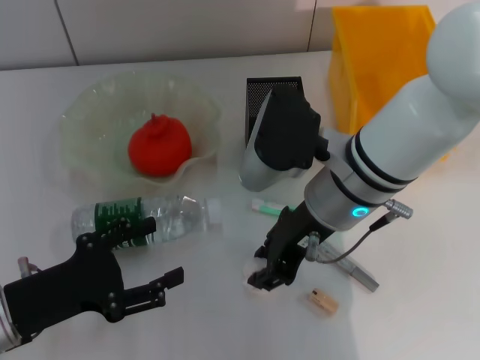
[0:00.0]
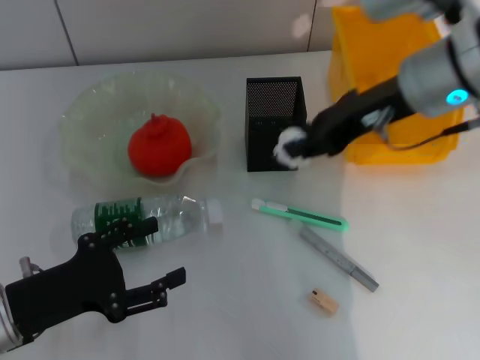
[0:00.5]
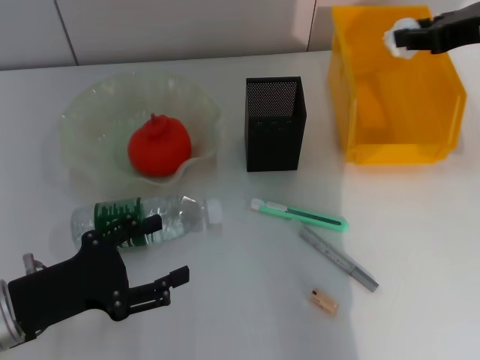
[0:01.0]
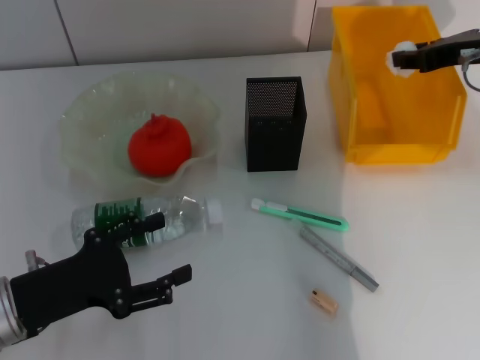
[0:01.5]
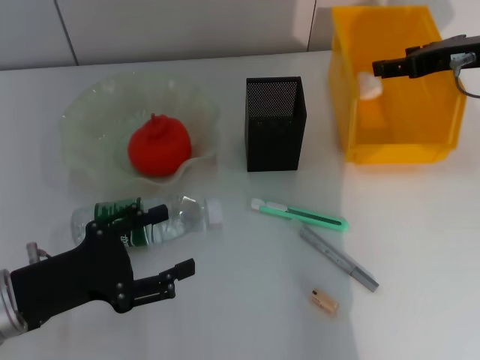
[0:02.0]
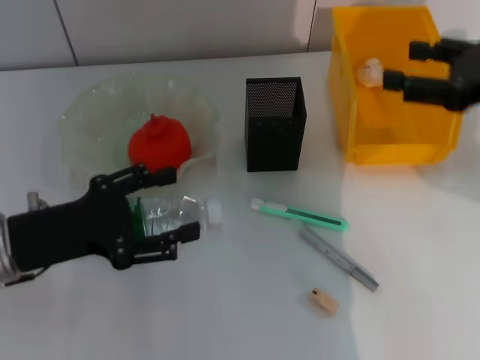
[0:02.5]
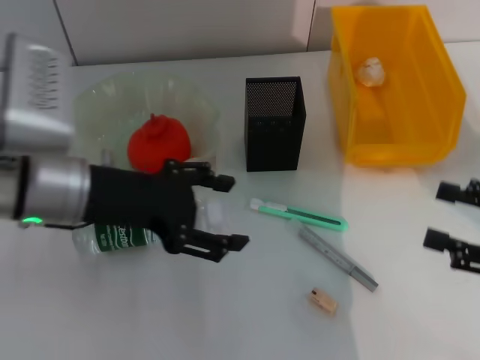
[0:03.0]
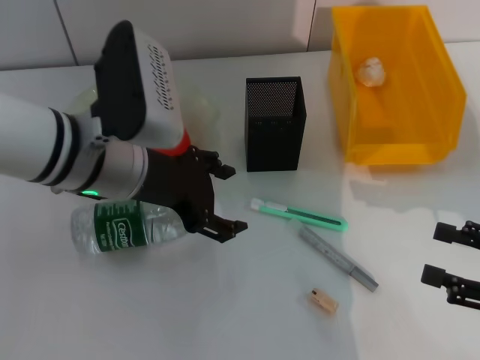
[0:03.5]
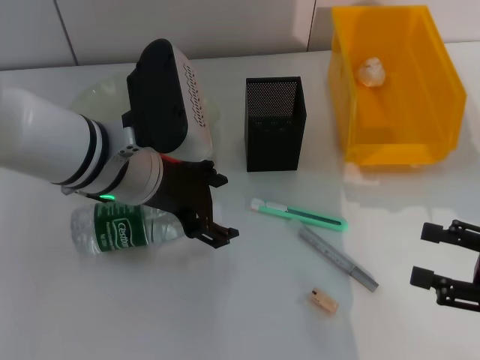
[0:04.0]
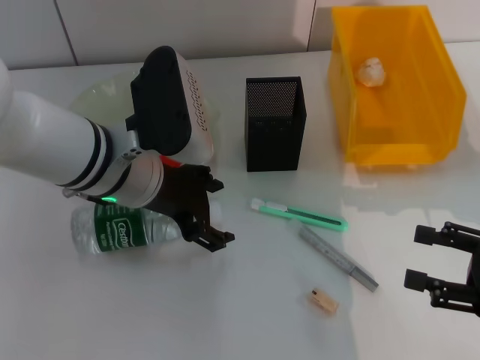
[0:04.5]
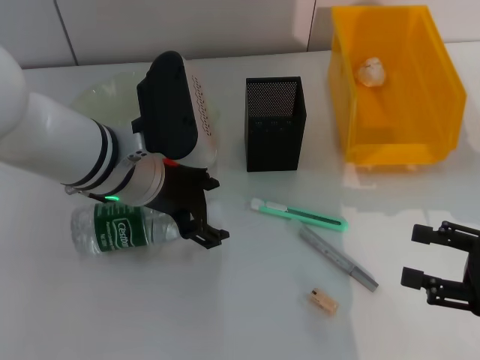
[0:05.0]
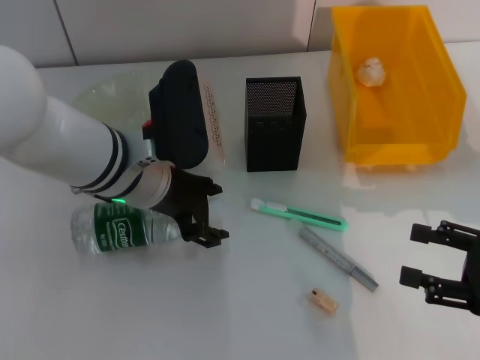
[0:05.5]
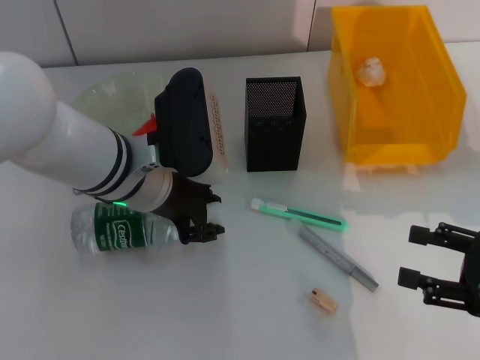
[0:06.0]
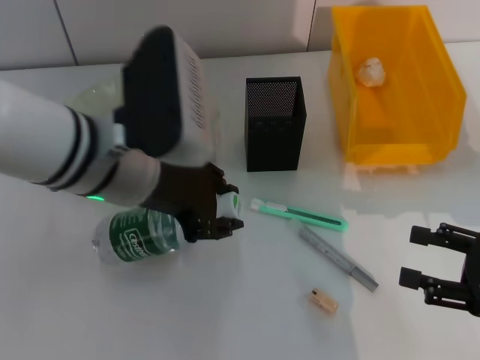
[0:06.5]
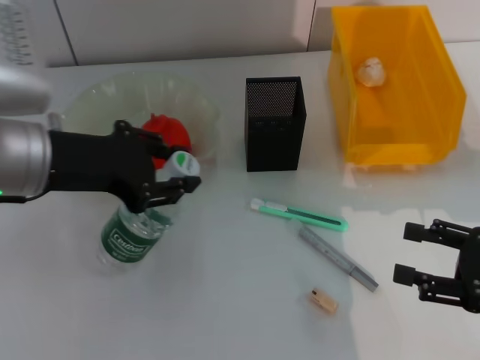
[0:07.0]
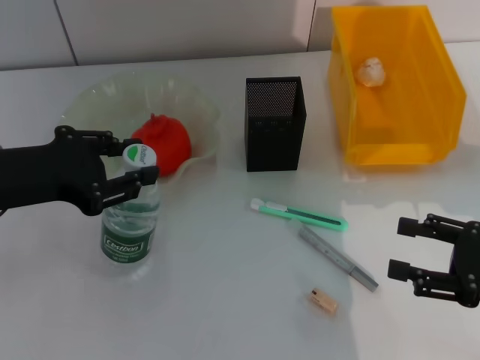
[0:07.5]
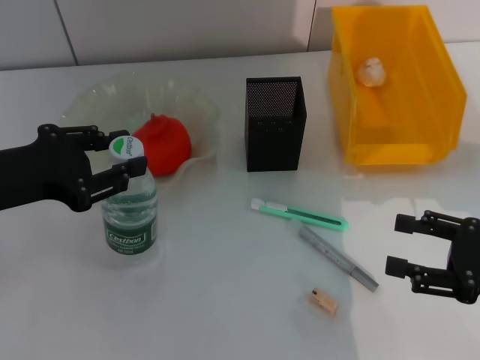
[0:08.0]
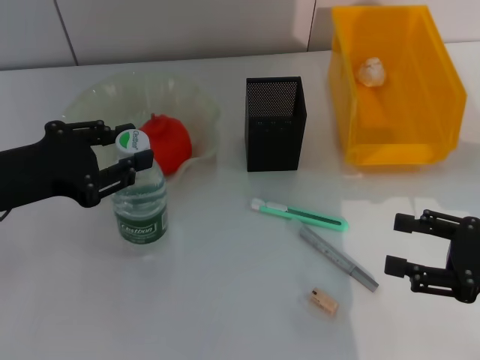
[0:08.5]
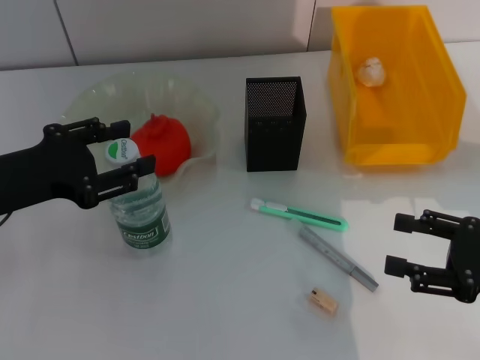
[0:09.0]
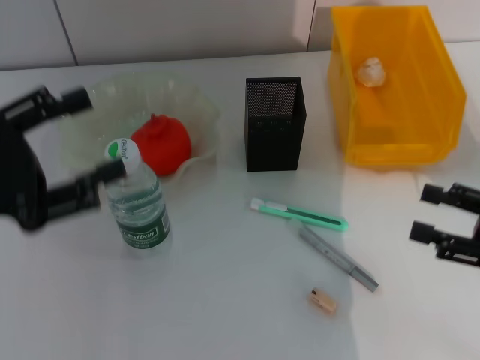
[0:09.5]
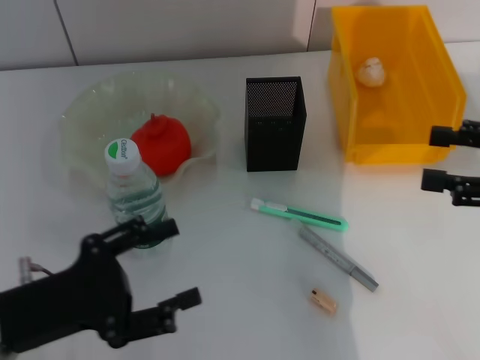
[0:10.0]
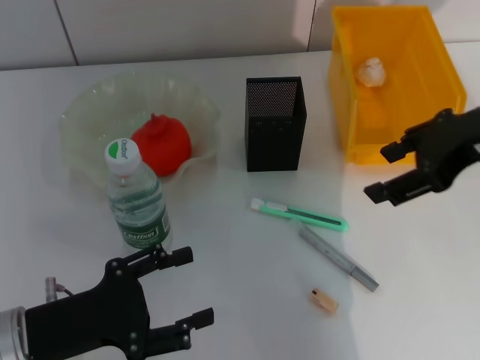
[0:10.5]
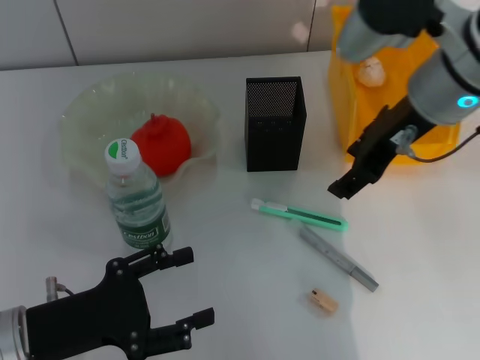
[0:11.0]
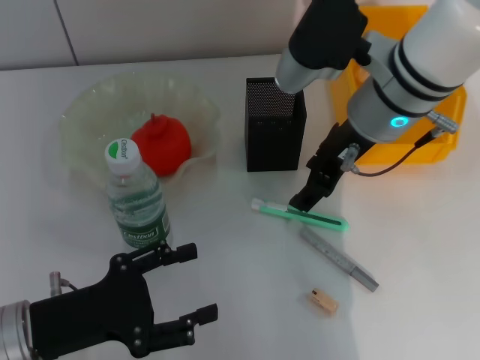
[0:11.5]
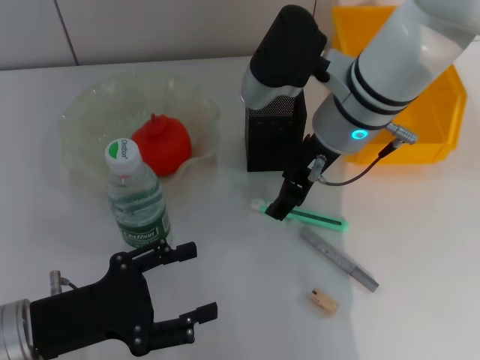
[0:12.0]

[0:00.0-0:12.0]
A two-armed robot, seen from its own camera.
Step, 0:00.0 to 0:02.0: Place the paper ball into the trash can with the right hand.
Step, 0:02.5 to 0:05.5: Grab the water bottle with the left hand.
Step, 0:06.0 to 0:09.0: Place the water bottle on the table with the left hand.
0:00.0 to 0:02.0: The right gripper is displaced to the right and forward by approximately 20 cm.
0:02.0 to 0:04.0: The right gripper moves backward and downward, some 25 cm; the left gripper goes approximately 20 cm to the right, forward and upward.
0:04.0 to 0:06.0: The left gripper closes its fingers.
0:06.0 to 0:08.0: The left gripper shifts roughly 15 cm to the left.
0:08.0 to 0:10.0: The right gripper travels upward by about 10 cm. The left gripper is displaced downward and backward by some 10 cm, and opens.
0:10.0 to 0:12.0: The right gripper is displaced to the left and forward by roughly 25 cm.

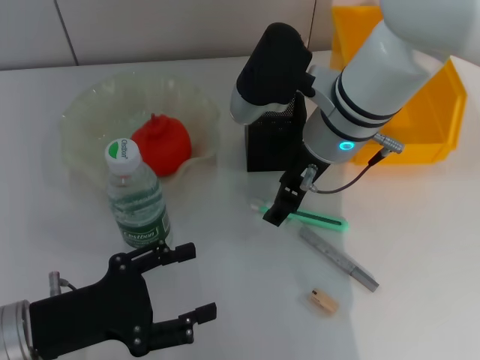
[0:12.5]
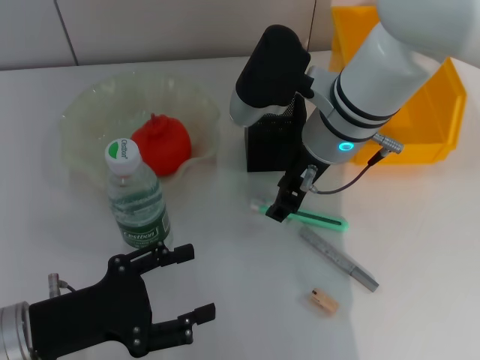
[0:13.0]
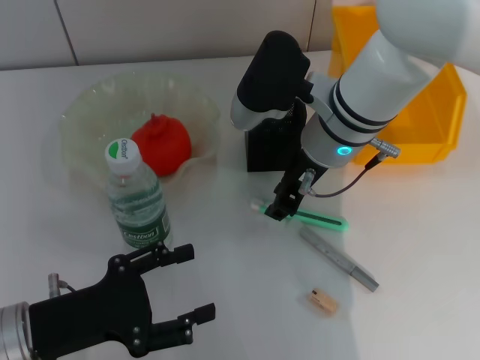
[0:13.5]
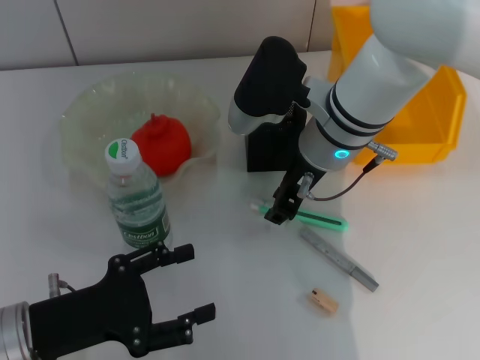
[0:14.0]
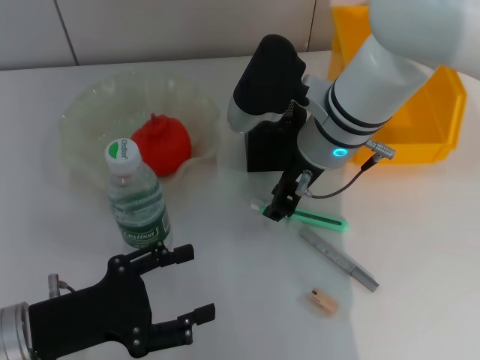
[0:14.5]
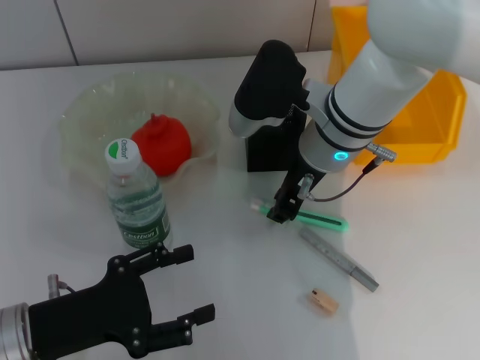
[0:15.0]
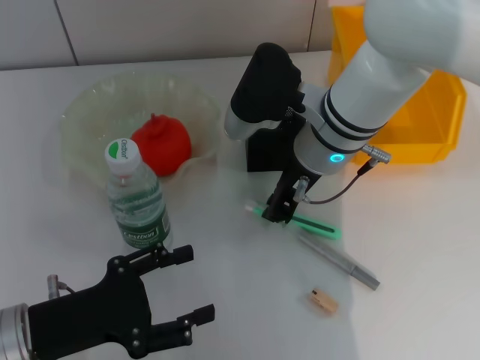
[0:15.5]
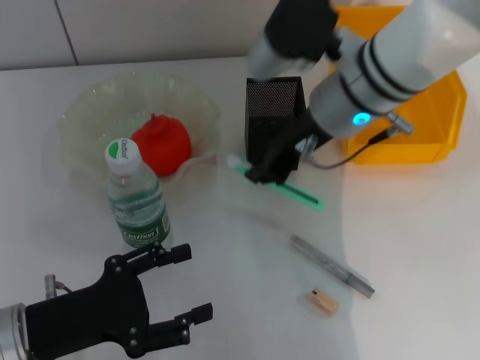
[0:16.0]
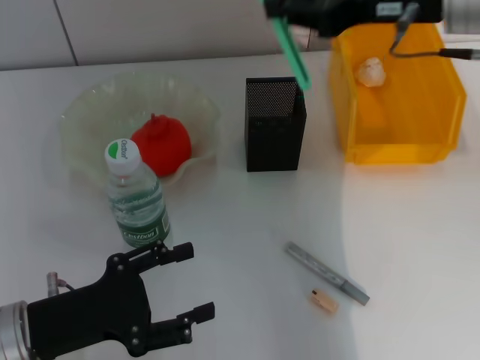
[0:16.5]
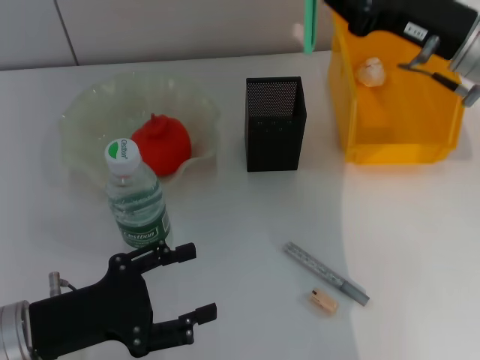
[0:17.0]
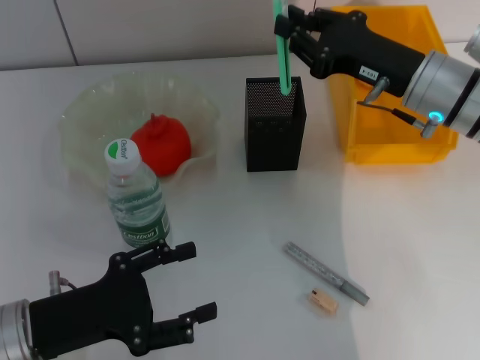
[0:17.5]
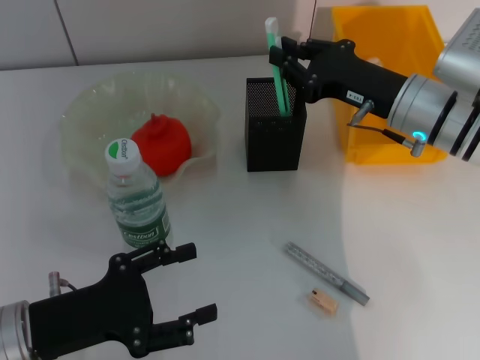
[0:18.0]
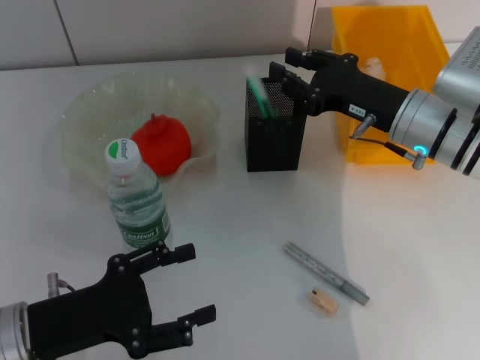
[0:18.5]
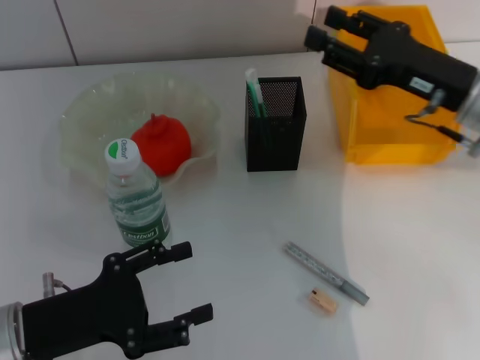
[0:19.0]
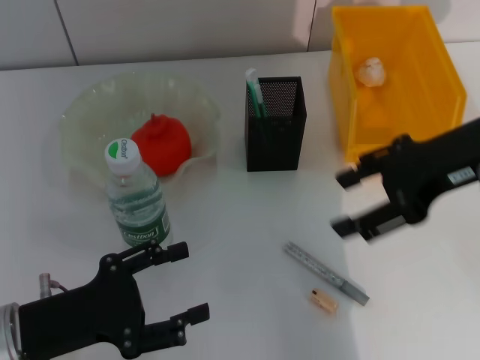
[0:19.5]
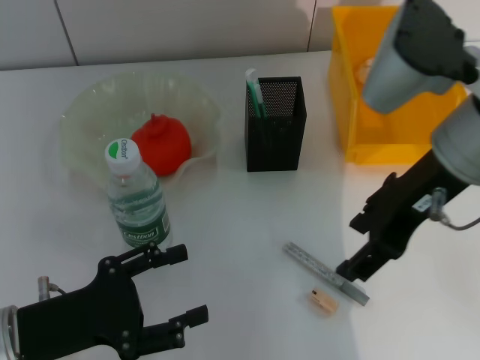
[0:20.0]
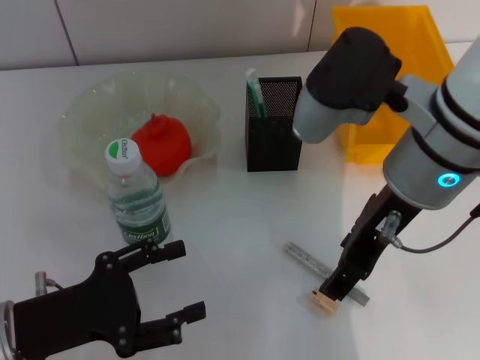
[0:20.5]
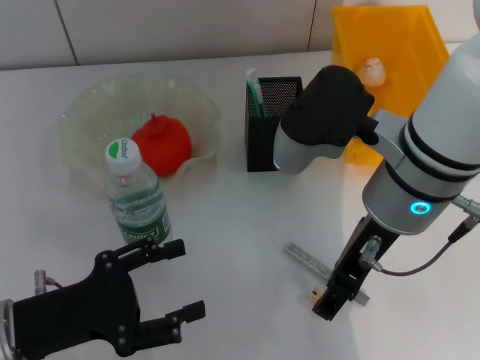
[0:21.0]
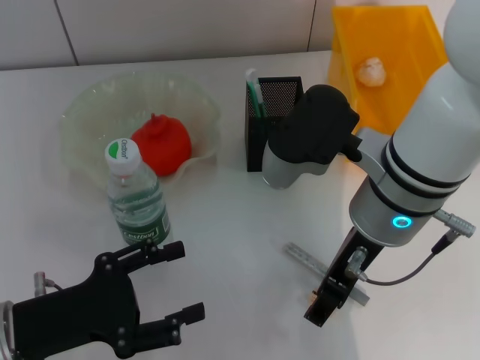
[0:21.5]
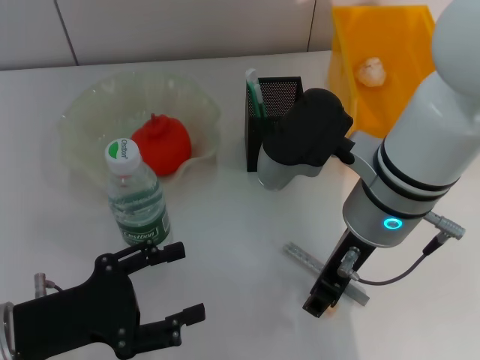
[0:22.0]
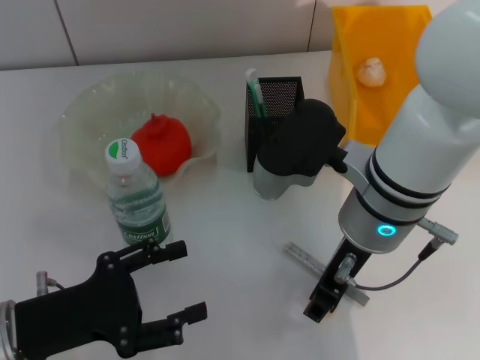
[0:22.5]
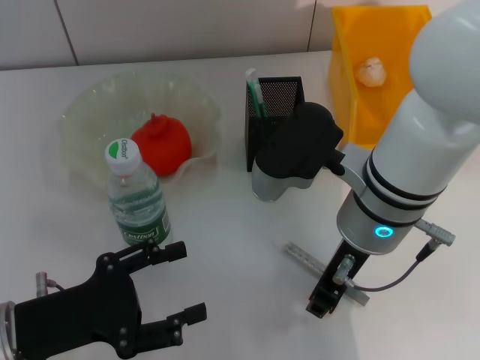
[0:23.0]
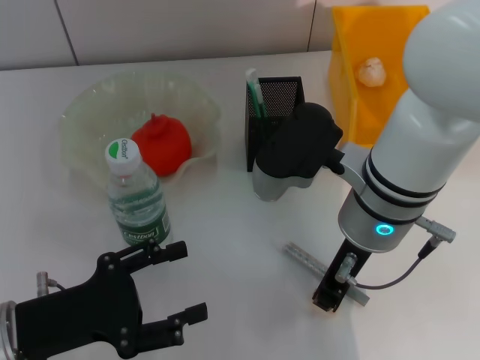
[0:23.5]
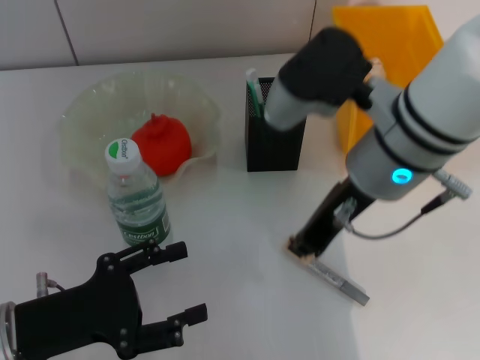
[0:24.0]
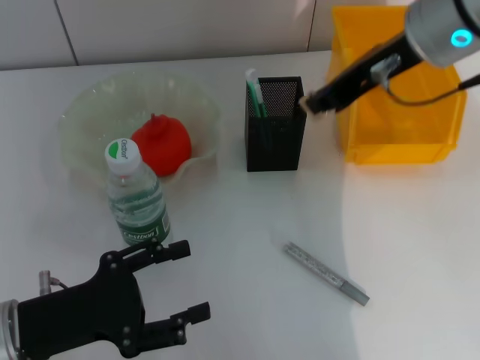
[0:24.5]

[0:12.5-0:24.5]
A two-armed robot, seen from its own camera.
Step, 0:12.5 to 0:15.0: Grab the blue utility knife with the right hand.
Step, 0:15.5 to 0:18.5: Place the blue utility knife into the pen holder with the right hand.
Step, 0:19.0 to 0:23.0: Grab the eraser with the right hand.
0:12.5 to 0:14.5: The grippers move only a little.
0:14.5 to 0:16.5: The right gripper travels to the right and upward by some 15 cm.
0:16.5 to 0:18.5: The right gripper travels downward by about 15 cm.
0:18.5 to 0:20.5: The right gripper travels upward, to the left and backward by some 15 cm, and opens up.
0:20.5 to 0:22.5: The right gripper heads downward, covering about 5 cm, and closes up.
0:22.5 to 0:24.5: The right gripper moves upward, forward and to the right, about 15 cm, and closes up.

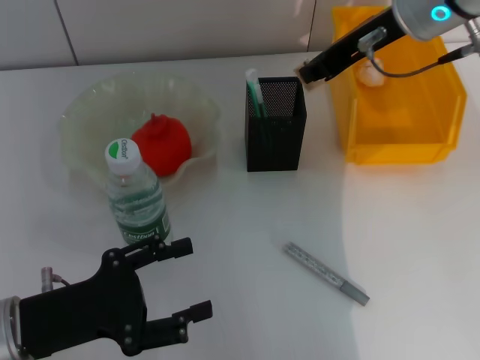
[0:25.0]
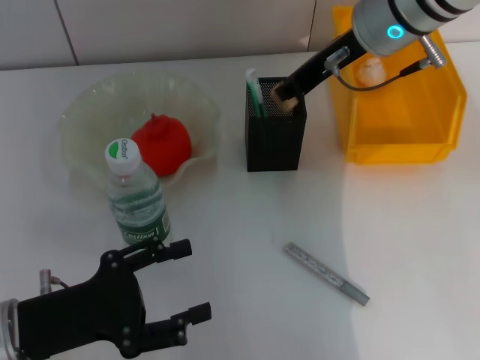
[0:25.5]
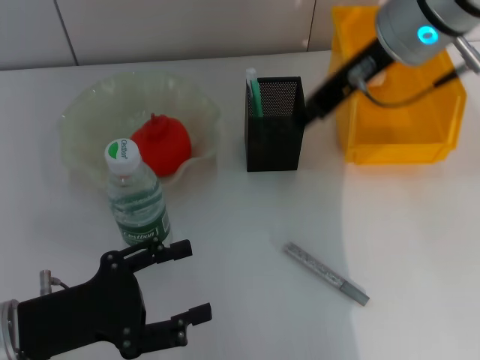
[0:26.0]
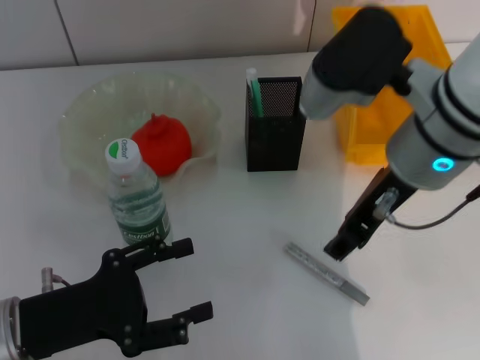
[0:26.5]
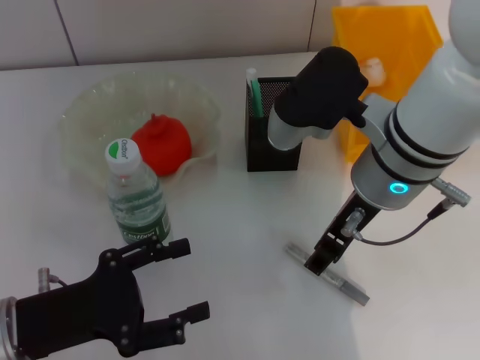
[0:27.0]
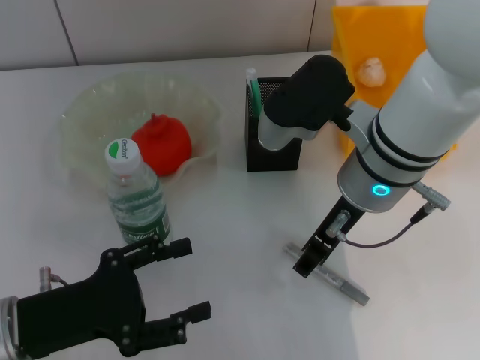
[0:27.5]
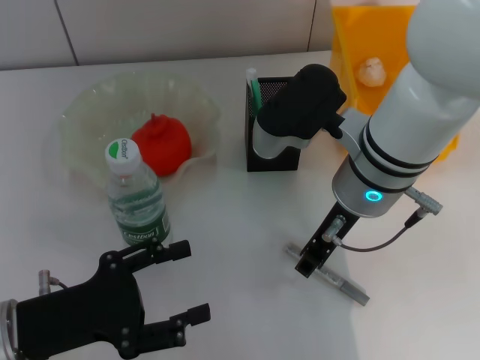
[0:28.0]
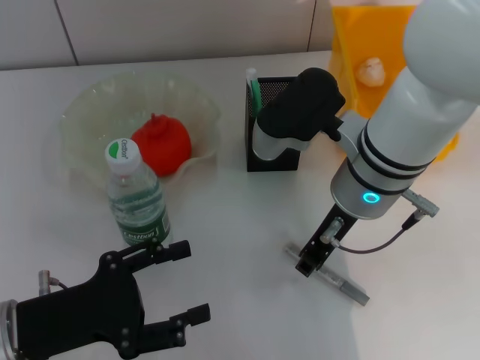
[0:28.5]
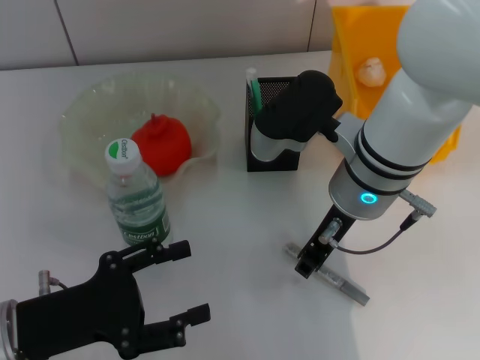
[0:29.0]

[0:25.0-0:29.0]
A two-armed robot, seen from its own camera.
0:25.0 to 0:27.0: The right gripper moves backward, downward and to the left, approximately 15 cm, and opens its fingers.
0:27.0 to 0:29.0: The right gripper closes up.
